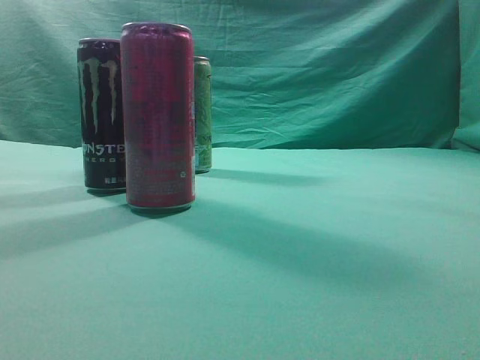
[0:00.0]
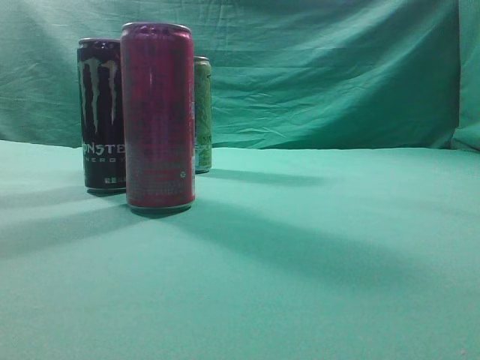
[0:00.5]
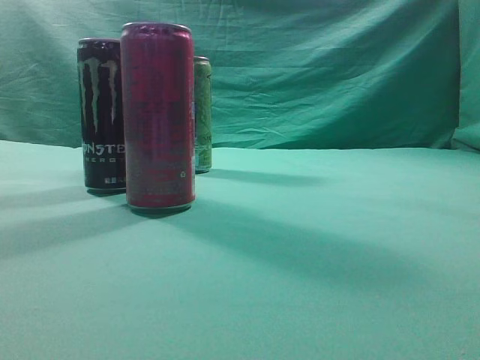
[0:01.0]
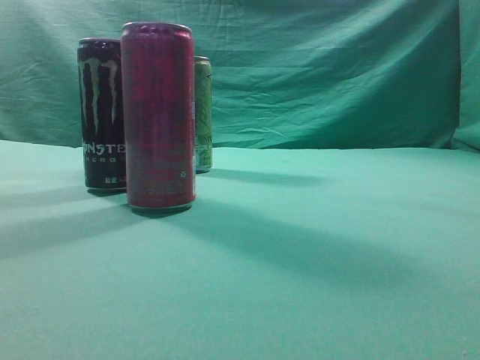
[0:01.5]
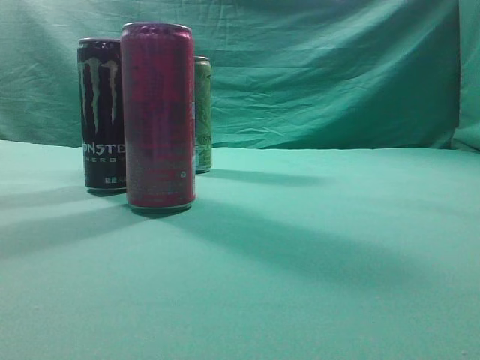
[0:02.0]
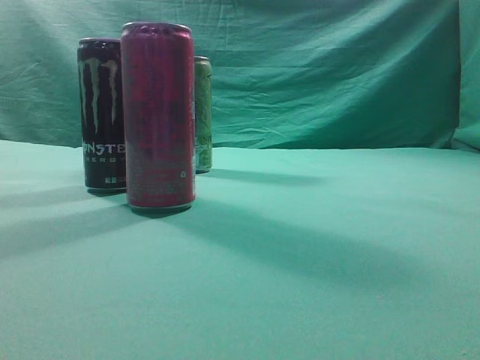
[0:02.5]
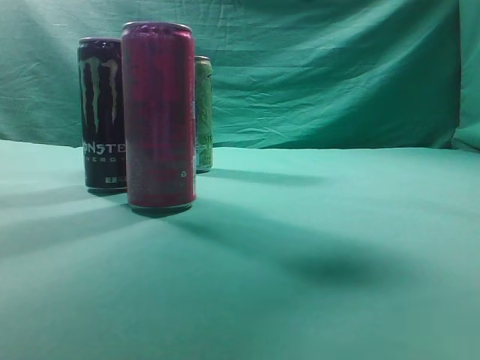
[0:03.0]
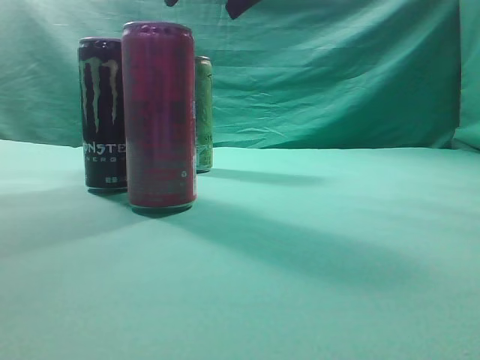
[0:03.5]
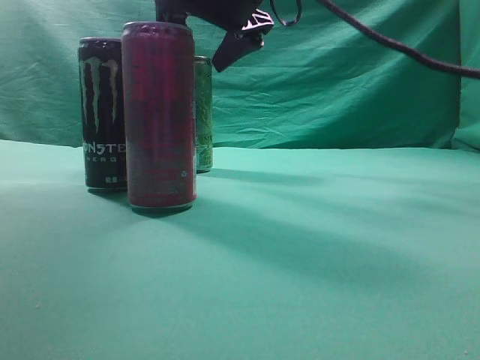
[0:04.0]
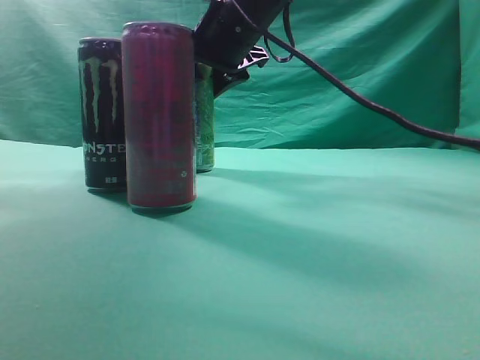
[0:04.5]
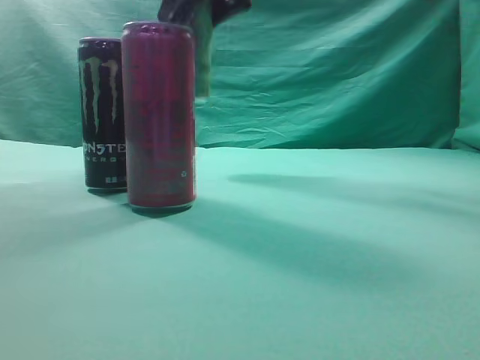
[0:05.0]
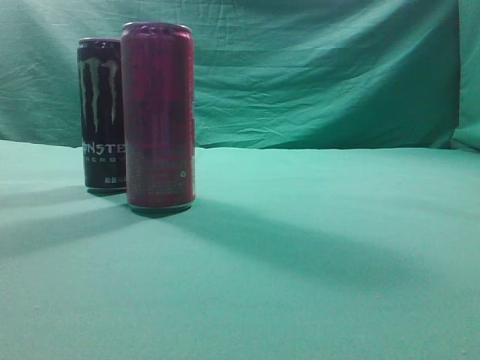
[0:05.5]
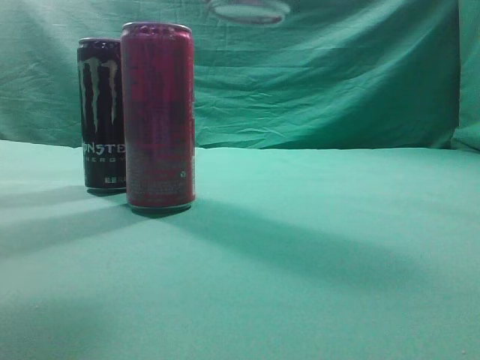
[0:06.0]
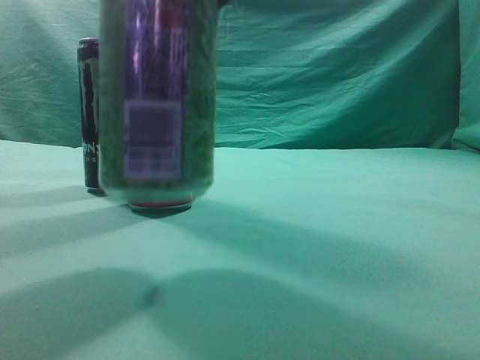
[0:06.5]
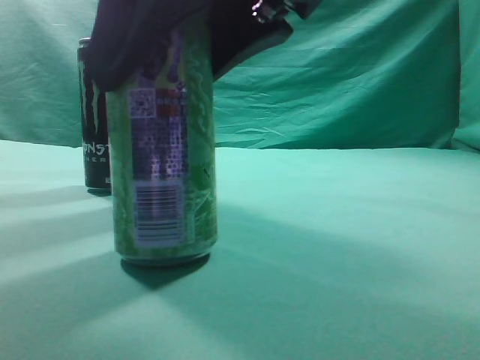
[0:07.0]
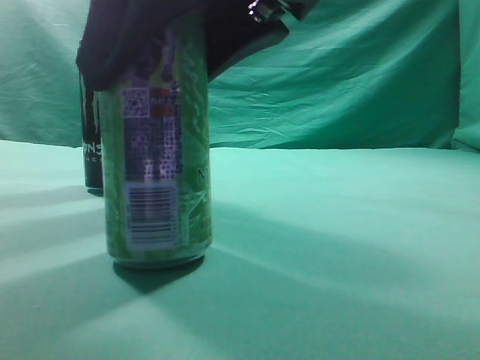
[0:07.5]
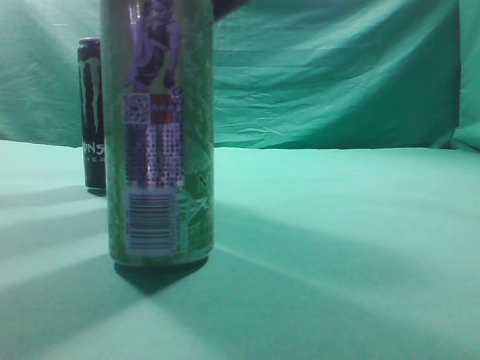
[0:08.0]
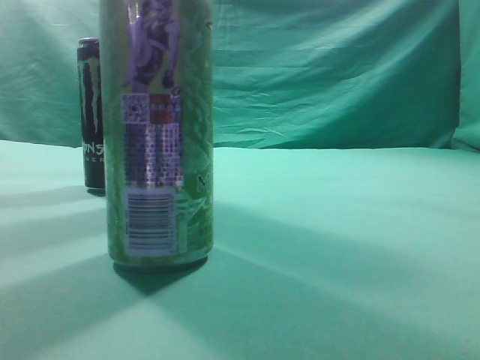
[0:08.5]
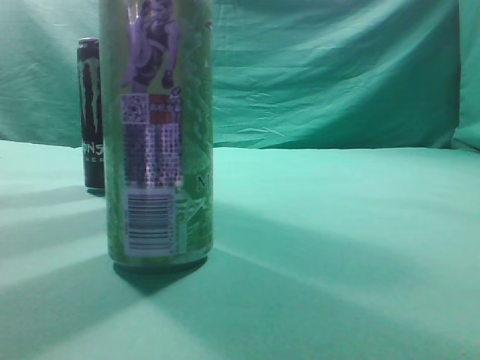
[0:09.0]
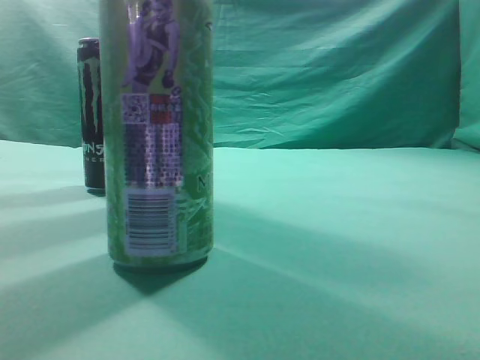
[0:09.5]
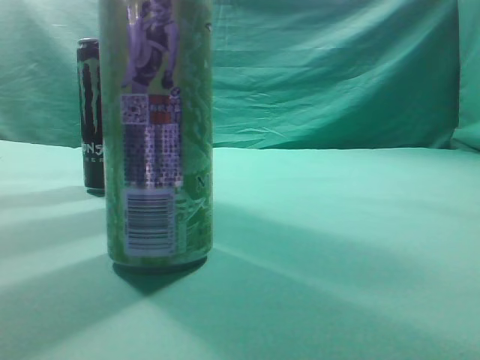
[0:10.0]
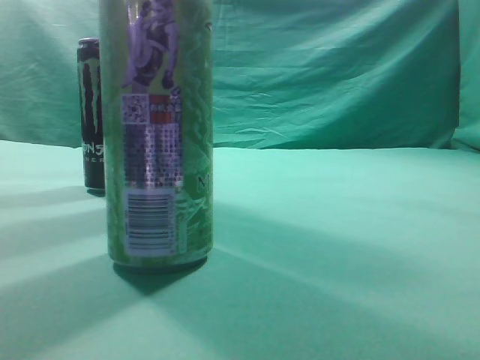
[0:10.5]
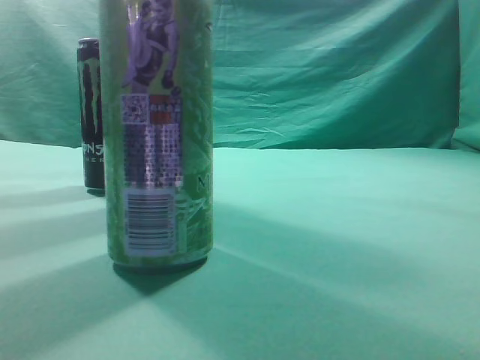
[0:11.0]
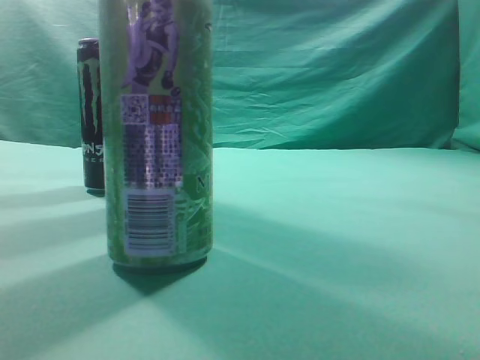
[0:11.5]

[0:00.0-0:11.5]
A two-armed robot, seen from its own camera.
Task of the whole recording: move one drink among three beverages.
Step, 0:00.0 to 0:05.0: Grasp the beverage bottle placed at the back of the desk.
Step, 0:05.5 to 0:08.0: Place the beverage bottle to the front of the table.
0:02.0 to 0:04.0: The right gripper shifts some 50 cm forward and to the left, and opens up.
0:04.0 to 0:06.0: The right gripper is displaced backward by approximately 25 cm, and closes its fingers.
0:06.0 to 0:07.5: The right gripper heads downward and to the left, covering some 15 cm.
0:07.5 to 0:09.5: The right gripper moves upward, to the right and backward, some 25 cm, and closes up.
